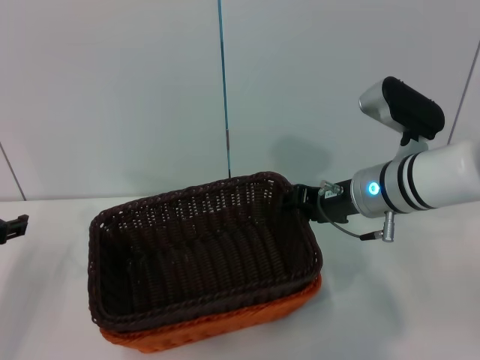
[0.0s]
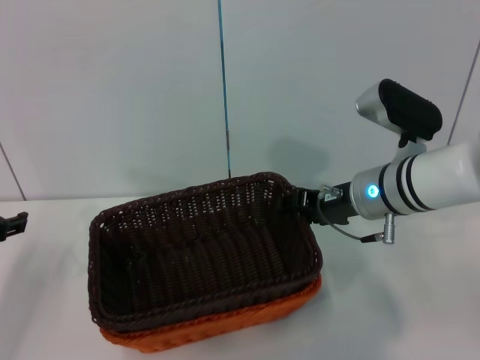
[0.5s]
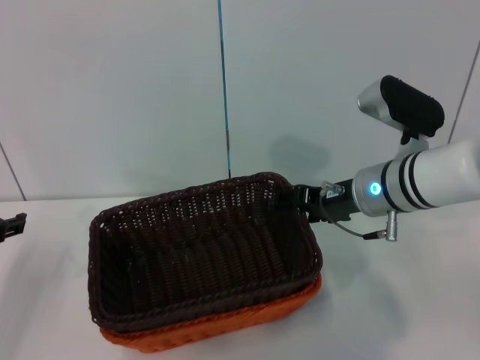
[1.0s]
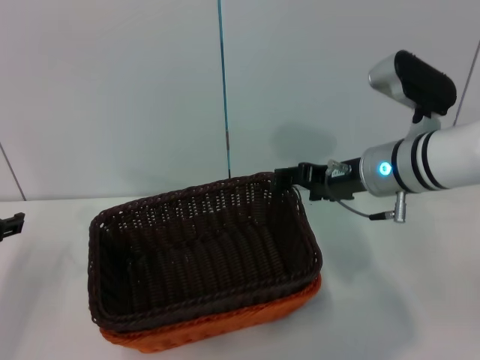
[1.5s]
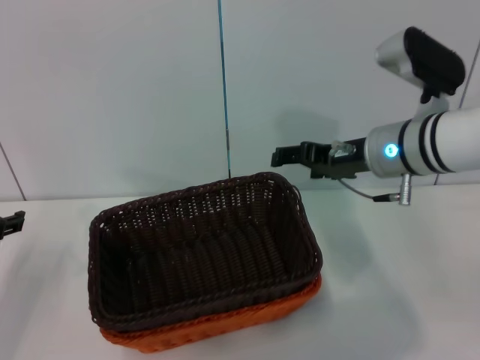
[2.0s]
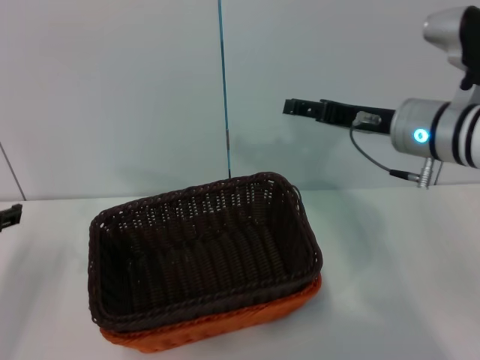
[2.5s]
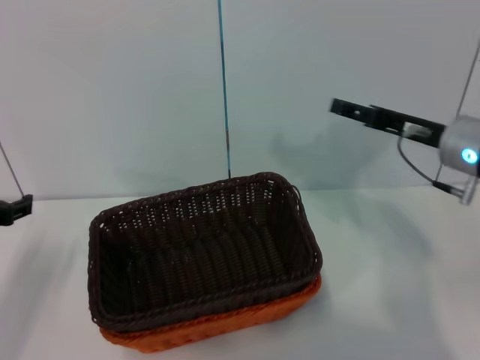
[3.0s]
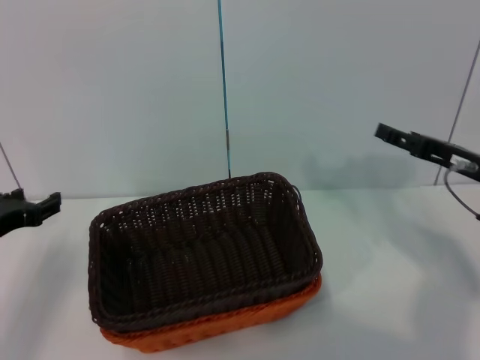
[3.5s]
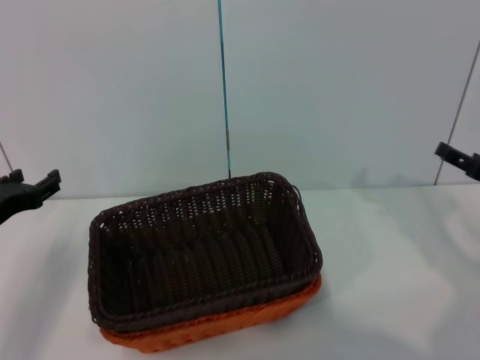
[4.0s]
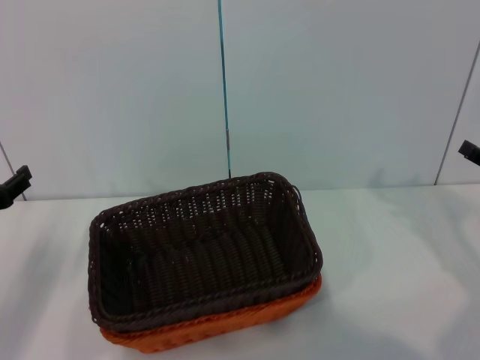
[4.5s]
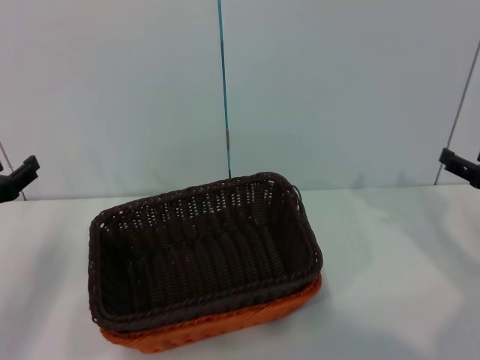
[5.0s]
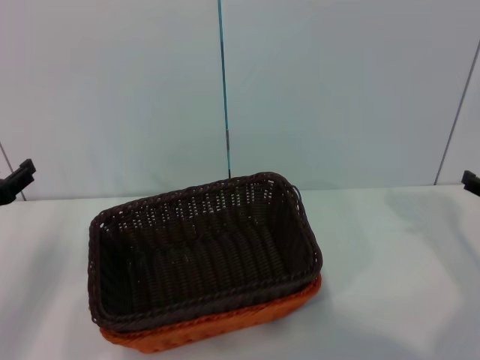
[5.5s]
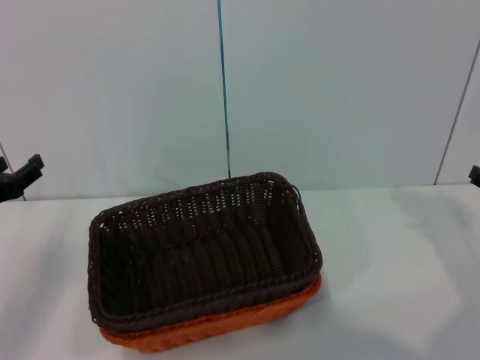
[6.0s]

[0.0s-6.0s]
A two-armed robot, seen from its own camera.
0.0s to 2.0s: The right gripper opens its fingers.
2.0s to 4.0s: The right gripper heads to the right and downward, covering some 20 cm.
4.0s to 6.0s: The grippers stay close to where they were, moving slightly.
